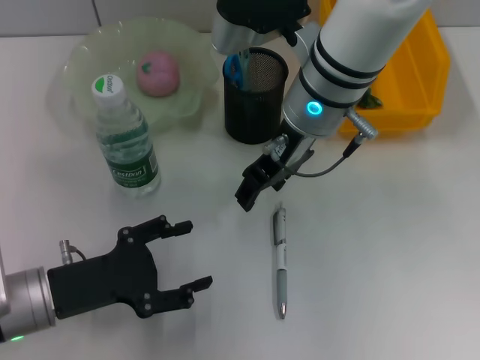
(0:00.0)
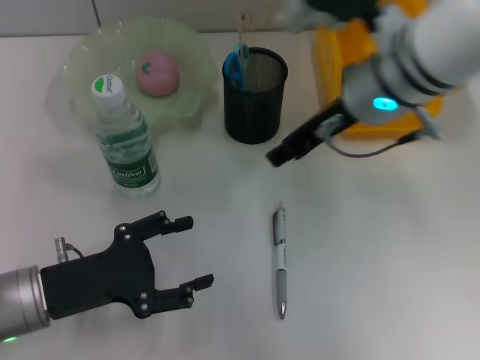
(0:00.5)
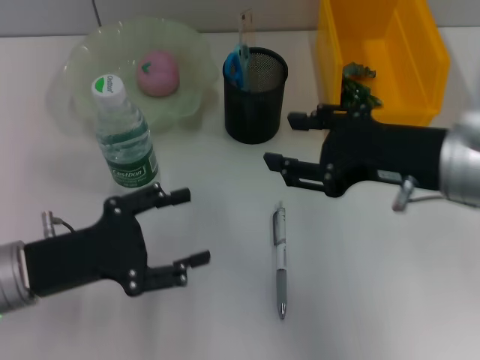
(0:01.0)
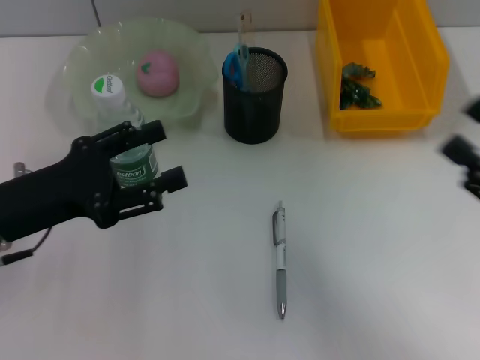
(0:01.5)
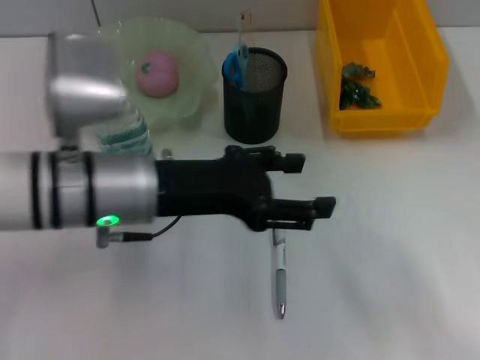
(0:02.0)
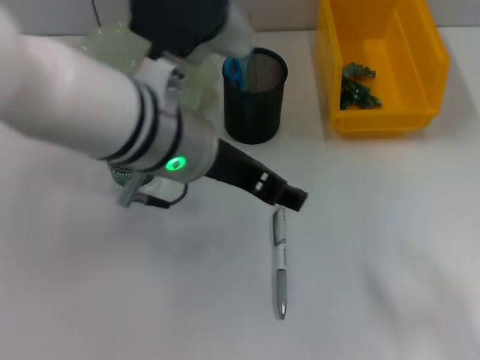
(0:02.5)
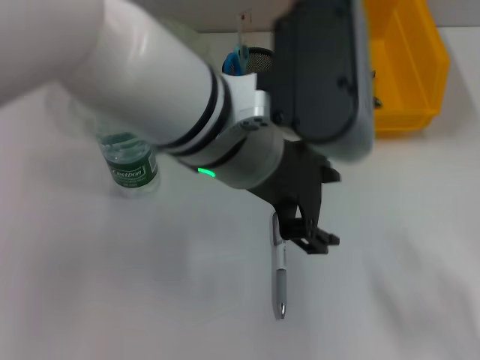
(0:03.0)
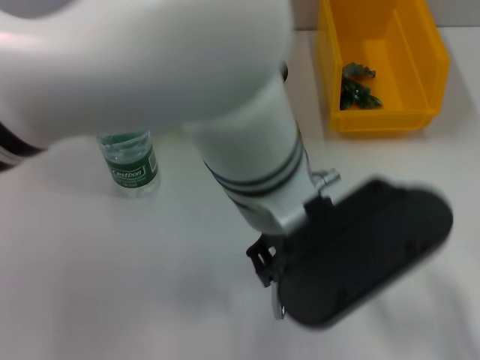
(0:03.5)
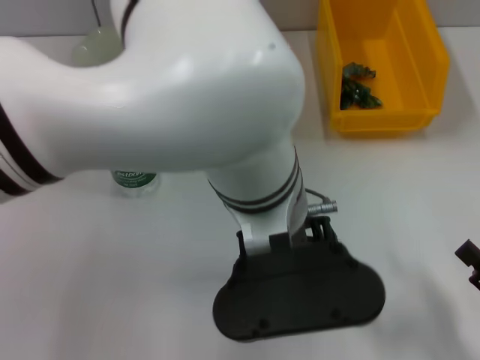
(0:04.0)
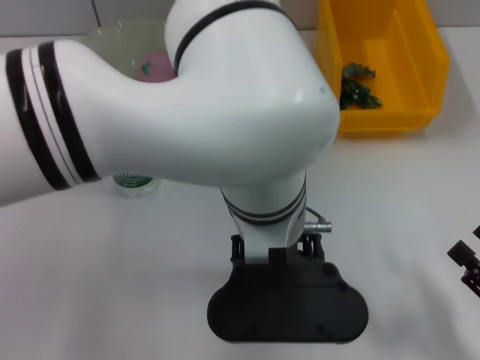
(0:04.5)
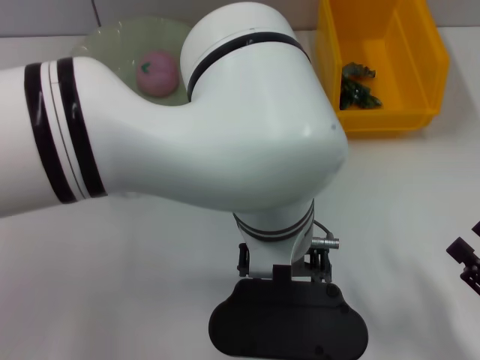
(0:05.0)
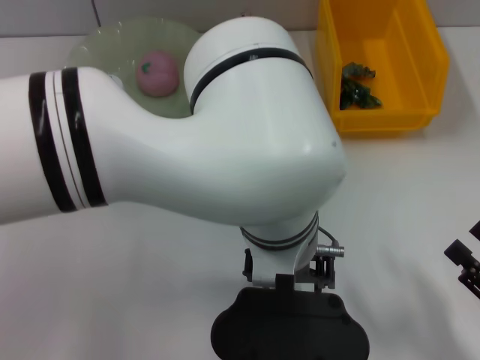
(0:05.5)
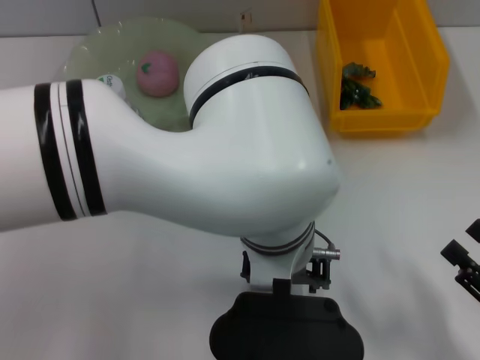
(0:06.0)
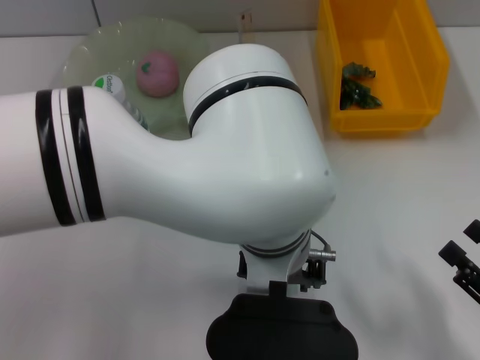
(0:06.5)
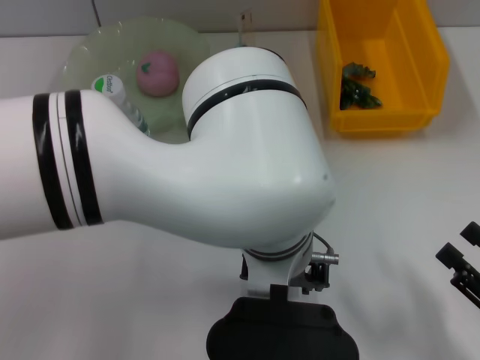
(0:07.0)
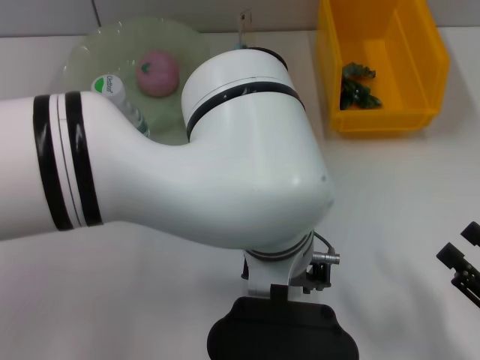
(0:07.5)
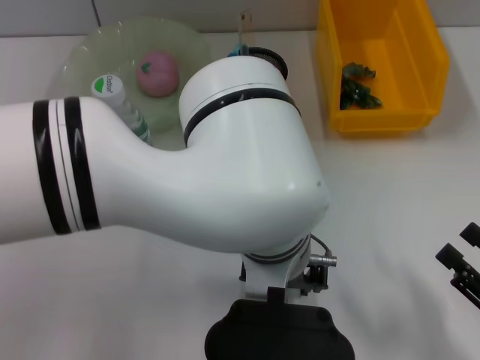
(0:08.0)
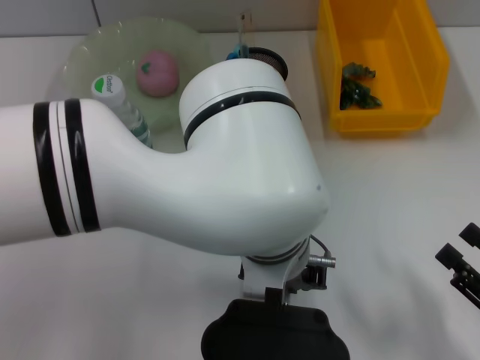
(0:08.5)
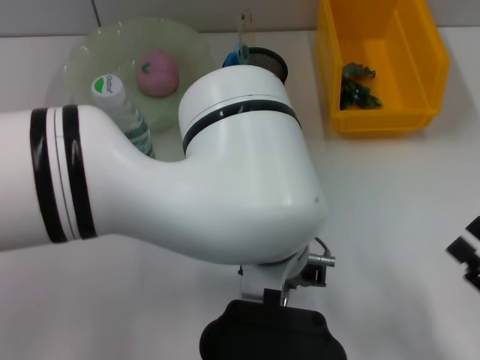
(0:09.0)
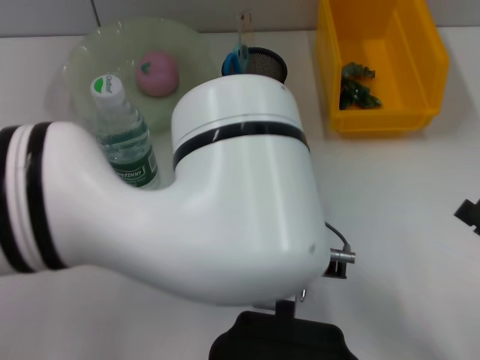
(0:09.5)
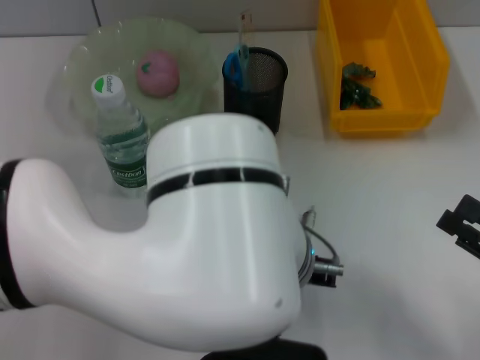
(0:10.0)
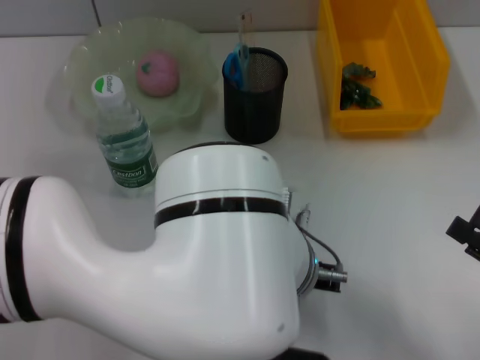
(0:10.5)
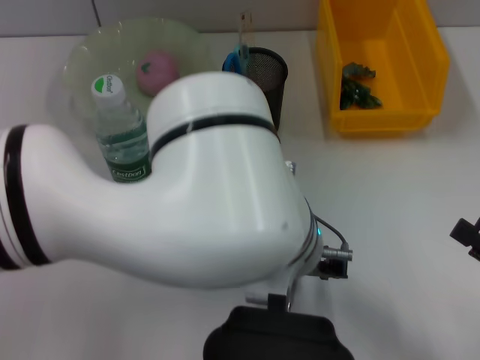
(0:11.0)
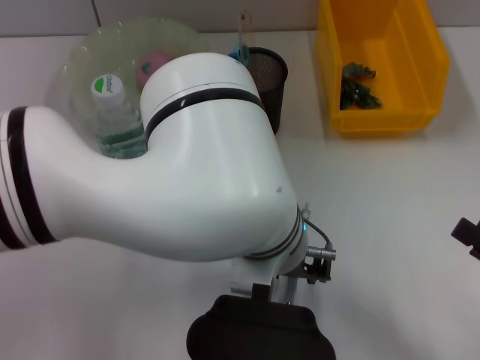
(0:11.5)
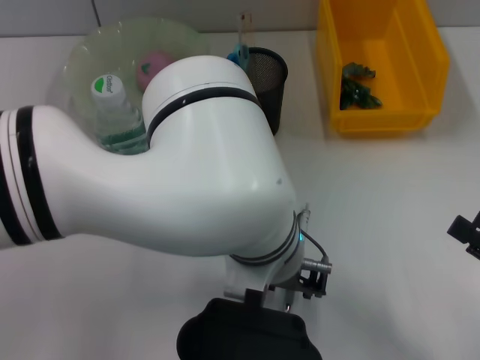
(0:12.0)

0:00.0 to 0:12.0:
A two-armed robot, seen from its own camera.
0:00.0 to 0:02.0: The right gripper travels to the right and backward by roughly 40 cm. Meanwhile the left gripper heads upward, to the right and forward, covering roughly 15 cm.
0:02.0 to 0:04.0: The left gripper heads to the right, covering approximately 15 cm.
0:08.0 to 0:10.0: The right gripper ends up about 5 cm from where it was; the left gripper closes.
0:10.0 to 0:12.0: The left gripper opens.

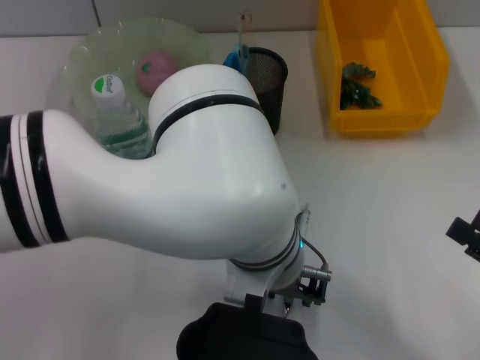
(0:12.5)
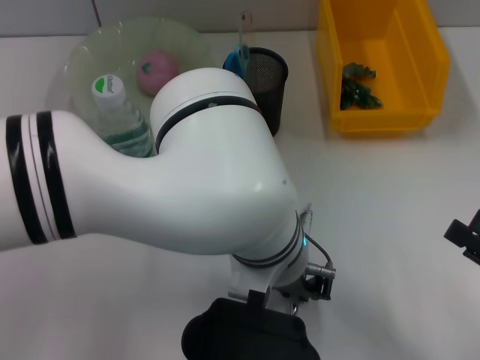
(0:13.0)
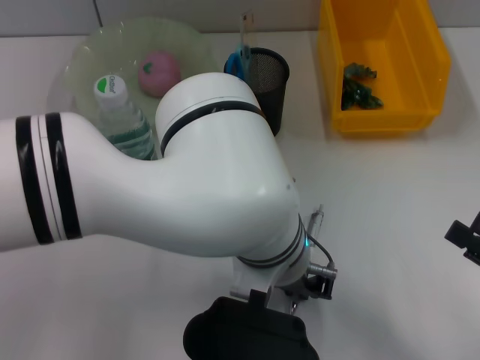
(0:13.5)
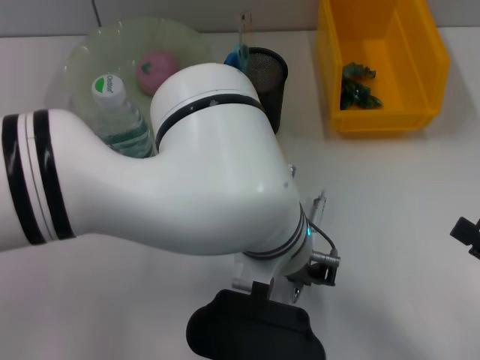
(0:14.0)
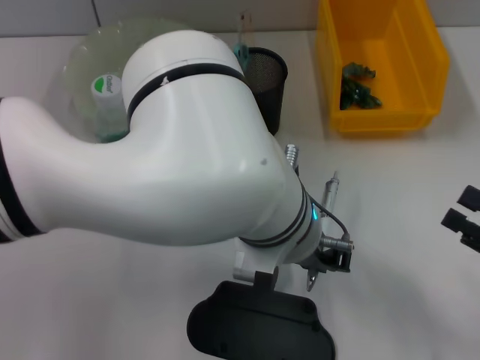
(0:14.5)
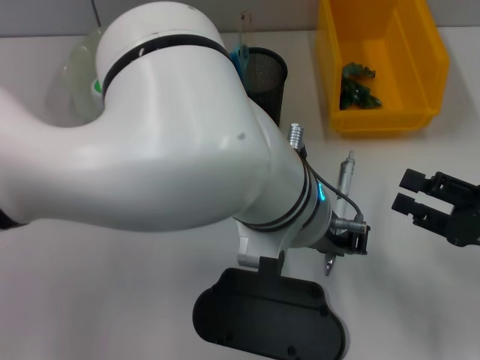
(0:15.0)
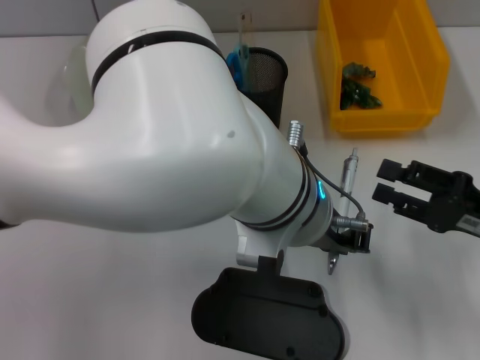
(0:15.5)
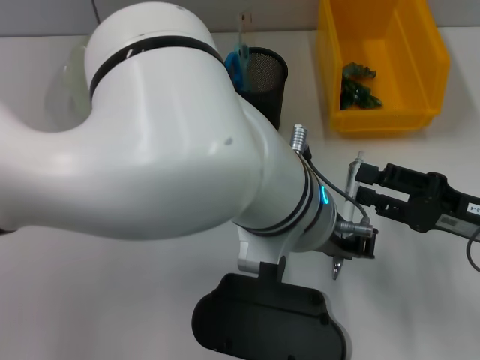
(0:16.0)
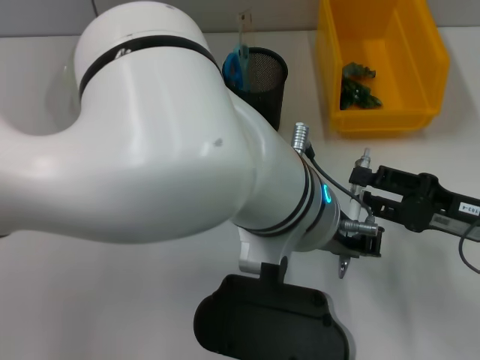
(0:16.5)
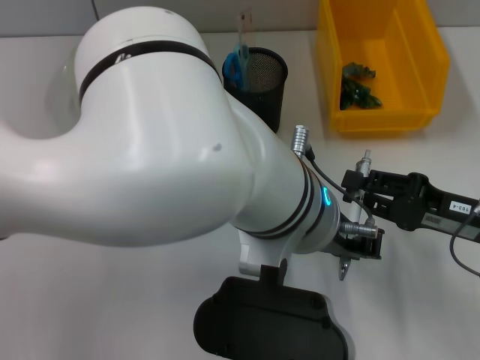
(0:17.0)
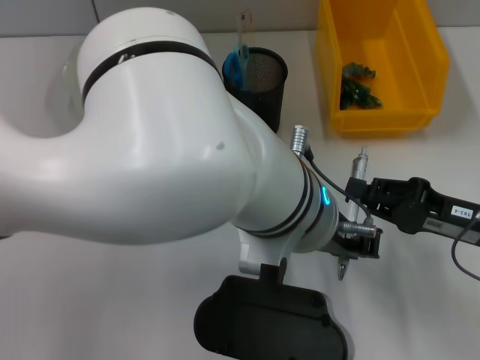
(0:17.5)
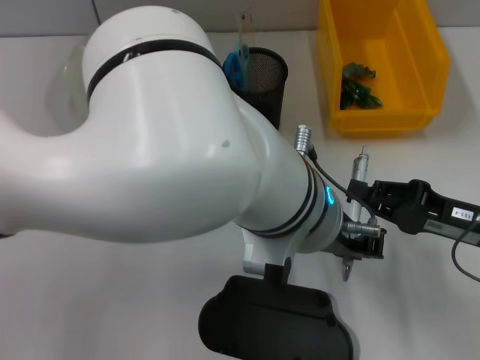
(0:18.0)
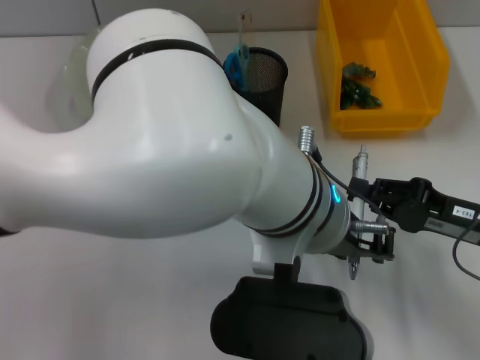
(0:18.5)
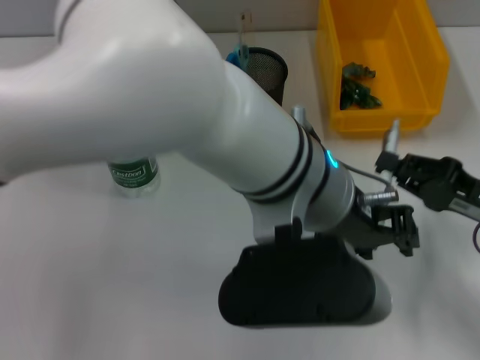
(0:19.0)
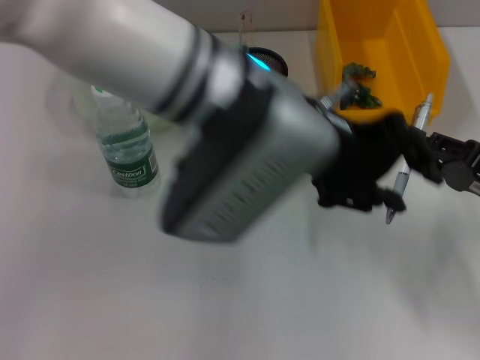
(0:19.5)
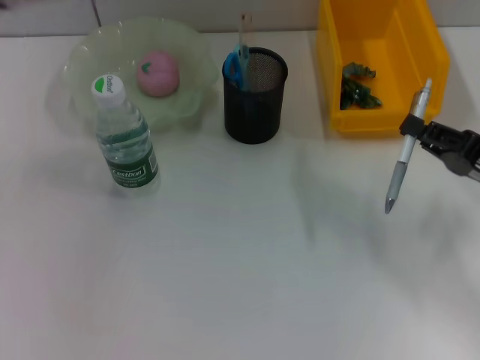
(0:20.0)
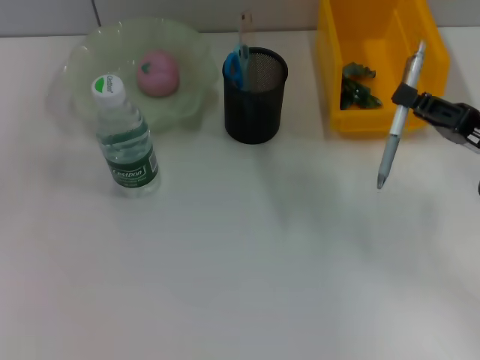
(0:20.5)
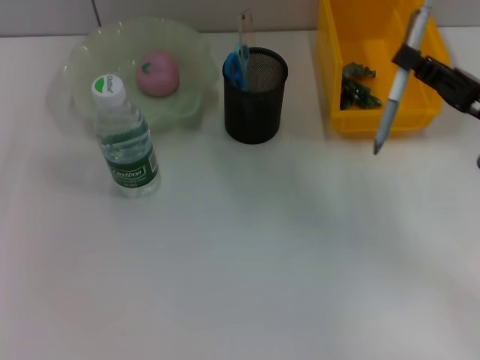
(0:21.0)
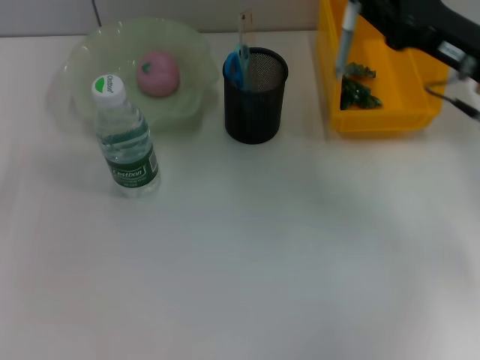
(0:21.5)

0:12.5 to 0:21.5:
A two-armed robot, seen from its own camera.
Step, 0:14.0 to 0:19.0: Pass the gray spring-action pen from the left hand to the right hand.
0:14.5 to 0:17.0: The right gripper heads forward and to the left, covering some 10 cm.
0:17.0 to 0:19.5: The left gripper is displaced forward by roughly 5 cm. The right gripper closes.
0:19.5 to 0:21.5: The right gripper heads forward, upward and to the left, covering approximately 15 cm, while the left gripper goes about 35 cm to the left and downward.

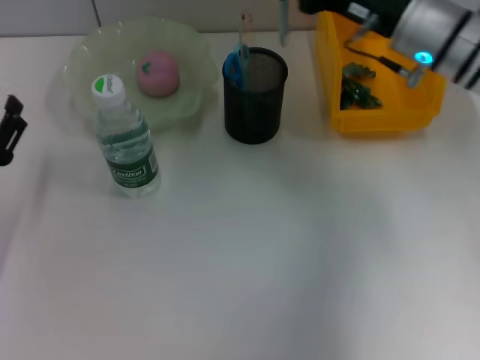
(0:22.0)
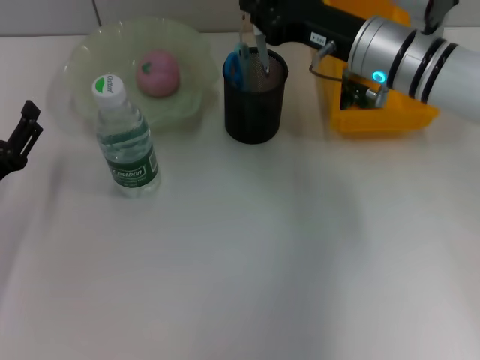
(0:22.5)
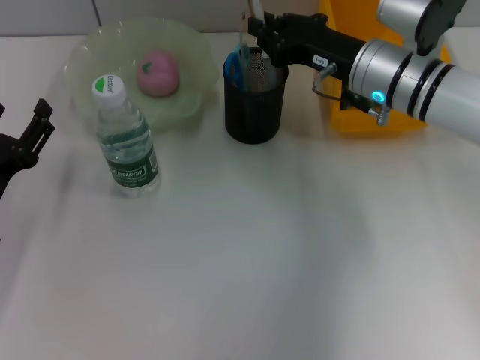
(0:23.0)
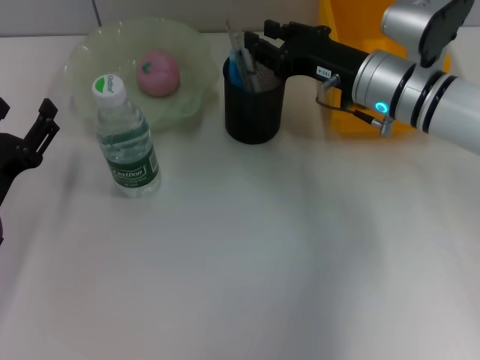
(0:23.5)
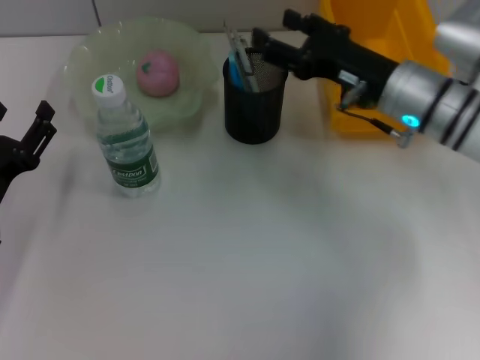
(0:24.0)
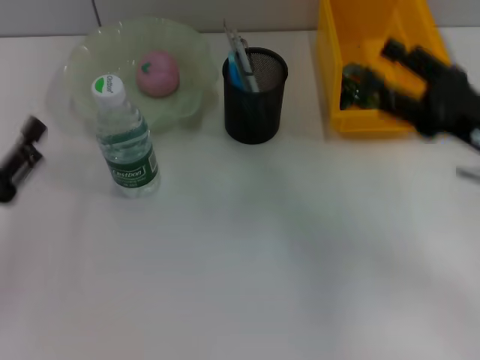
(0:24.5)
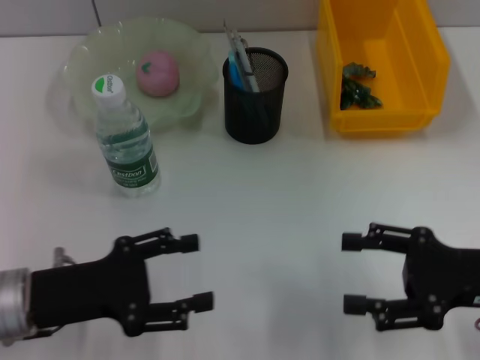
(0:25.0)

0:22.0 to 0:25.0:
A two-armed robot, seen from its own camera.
0:22.0 to 0:23.5: The right gripper travels downward by roughly 5 cm.
0:23.5 to 0:25.0: The left gripper shifts by about 5 cm. Meanwhile the right gripper is displaced backward and to the right by approximately 20 cm, and opens.

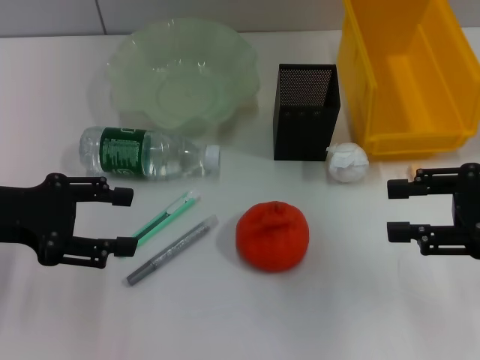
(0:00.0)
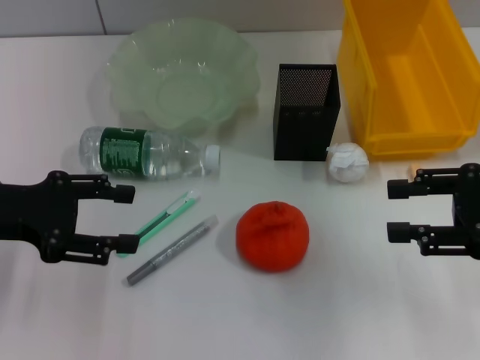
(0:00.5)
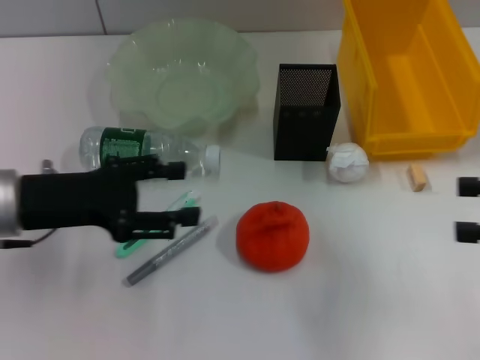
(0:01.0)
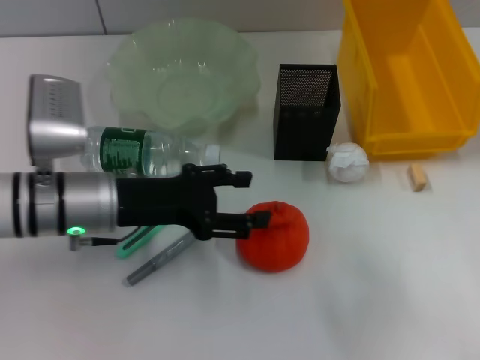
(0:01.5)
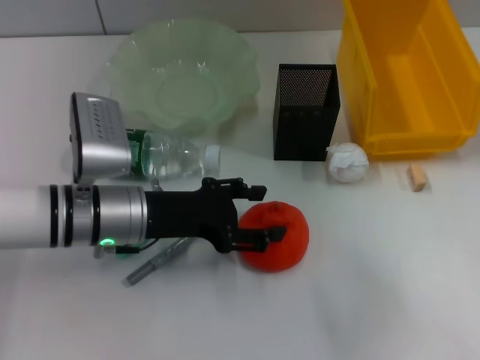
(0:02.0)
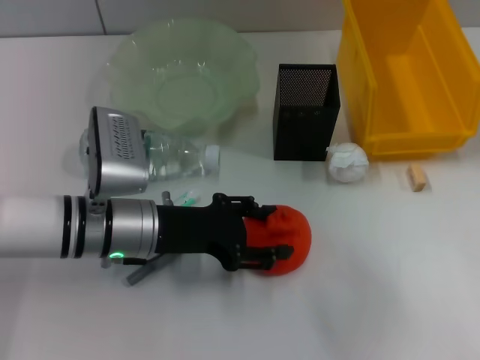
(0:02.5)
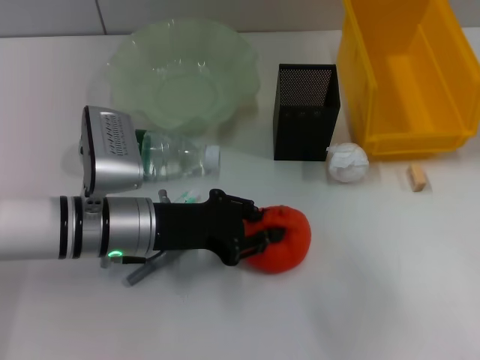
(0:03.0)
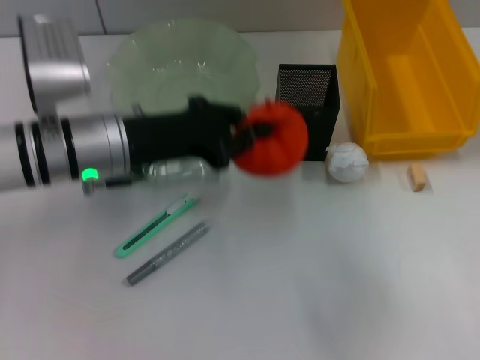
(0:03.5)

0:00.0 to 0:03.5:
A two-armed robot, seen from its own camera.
Step, 0:00.0 to 0:02.5: Grab the orange with the left hand.
0:00.0 to 0:02.0: The left gripper goes roughly 15 cm to the right and downward. The right gripper travels to the right and backward by about 10 cm.
0:02.0 to 0:03.5: The left gripper shifts about 5 cm upward, and closes its fingers.
